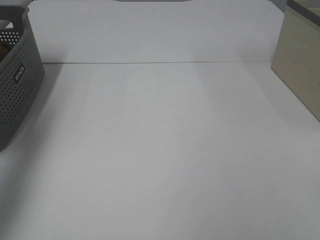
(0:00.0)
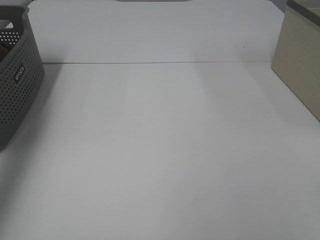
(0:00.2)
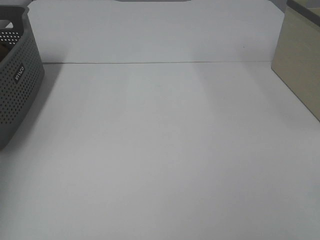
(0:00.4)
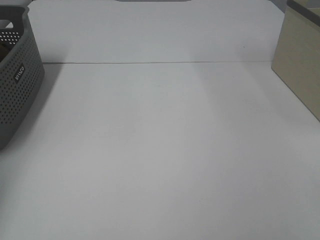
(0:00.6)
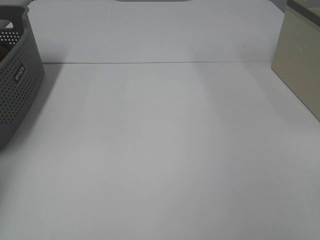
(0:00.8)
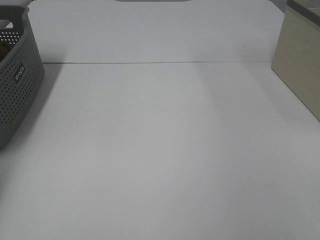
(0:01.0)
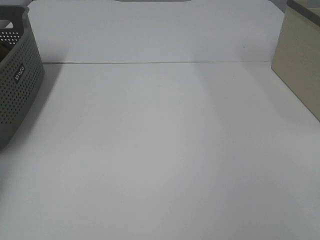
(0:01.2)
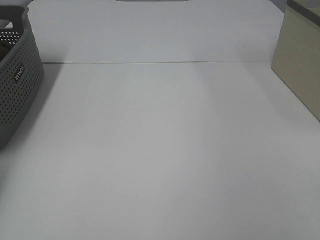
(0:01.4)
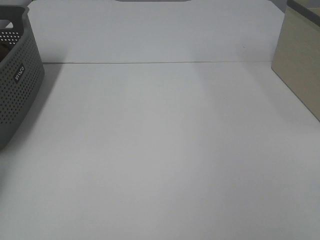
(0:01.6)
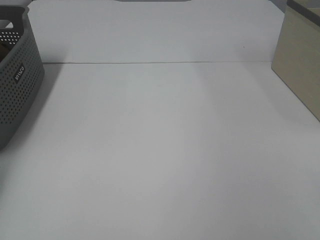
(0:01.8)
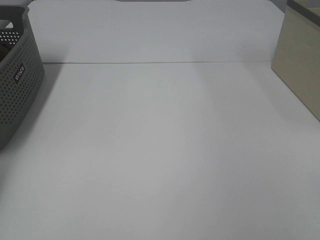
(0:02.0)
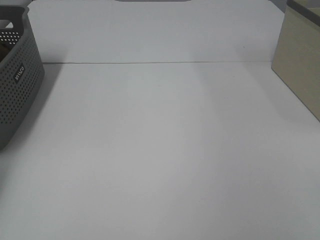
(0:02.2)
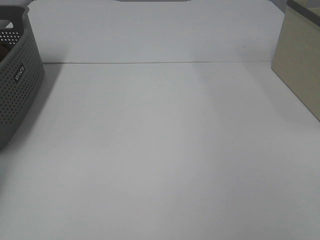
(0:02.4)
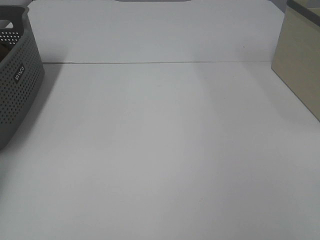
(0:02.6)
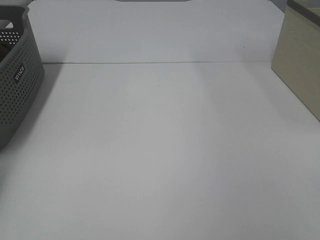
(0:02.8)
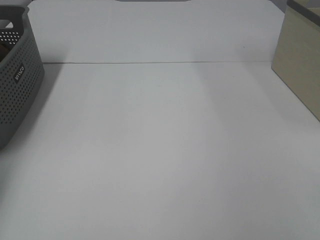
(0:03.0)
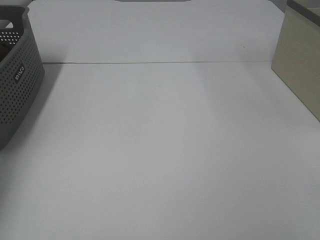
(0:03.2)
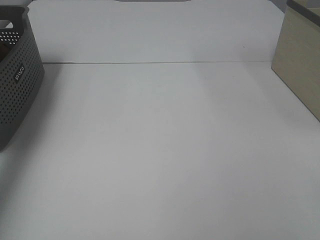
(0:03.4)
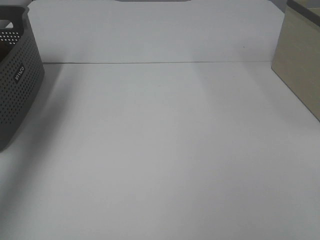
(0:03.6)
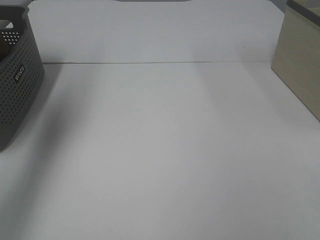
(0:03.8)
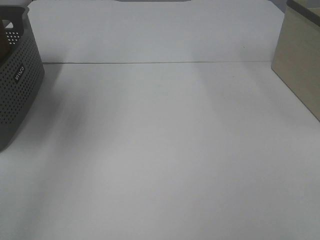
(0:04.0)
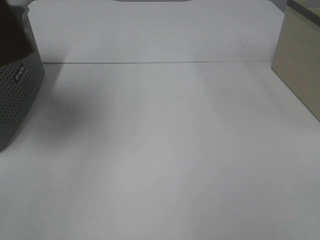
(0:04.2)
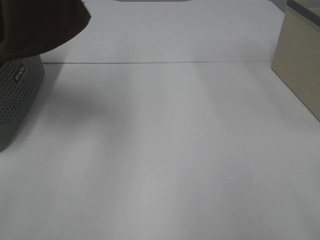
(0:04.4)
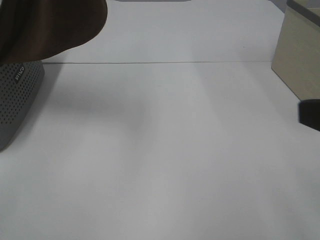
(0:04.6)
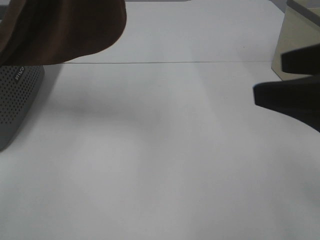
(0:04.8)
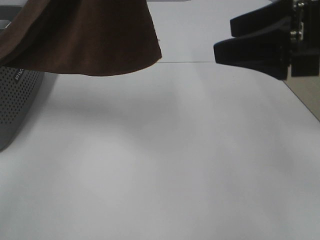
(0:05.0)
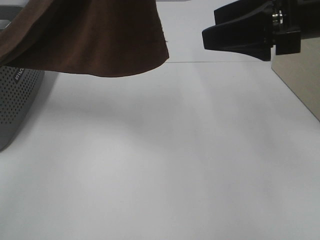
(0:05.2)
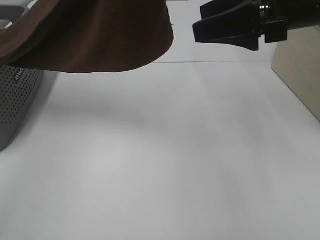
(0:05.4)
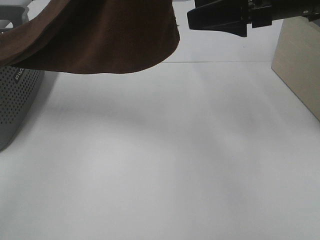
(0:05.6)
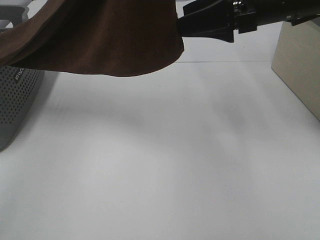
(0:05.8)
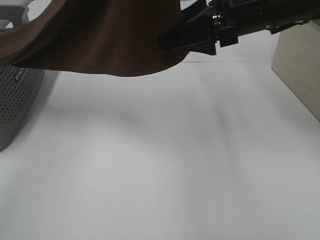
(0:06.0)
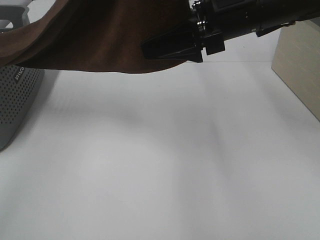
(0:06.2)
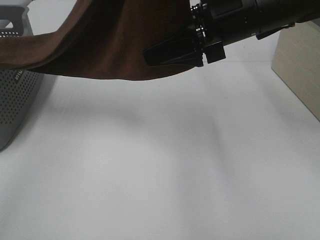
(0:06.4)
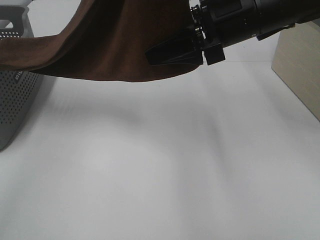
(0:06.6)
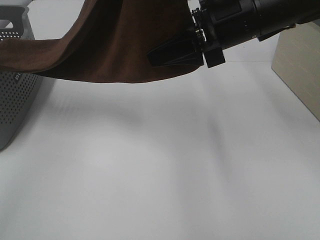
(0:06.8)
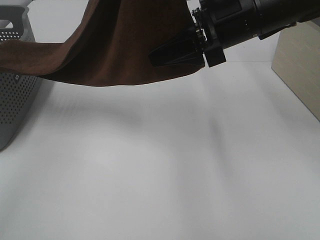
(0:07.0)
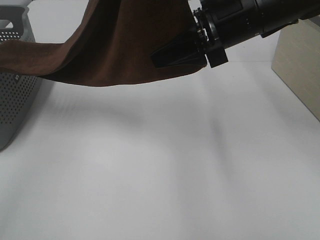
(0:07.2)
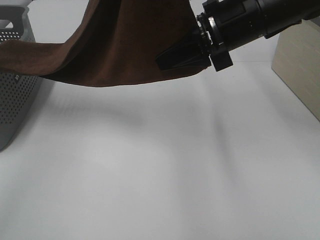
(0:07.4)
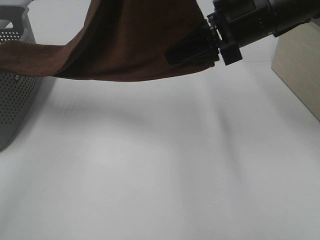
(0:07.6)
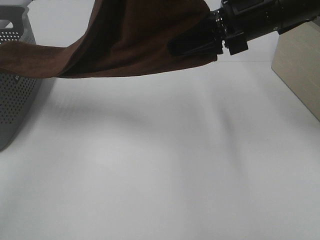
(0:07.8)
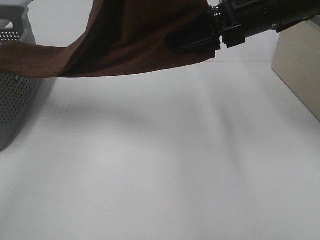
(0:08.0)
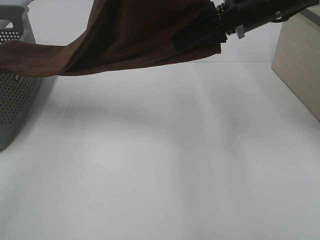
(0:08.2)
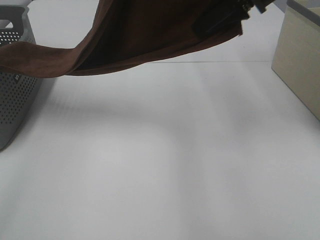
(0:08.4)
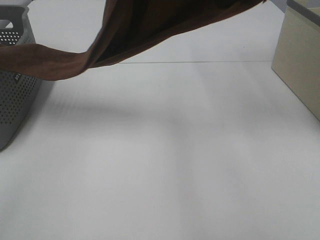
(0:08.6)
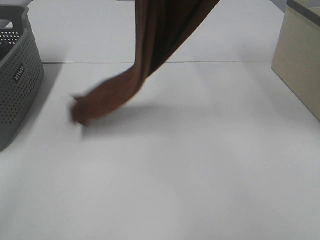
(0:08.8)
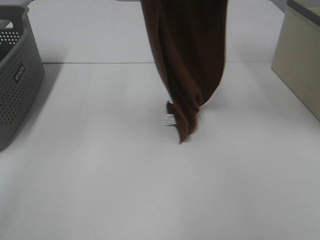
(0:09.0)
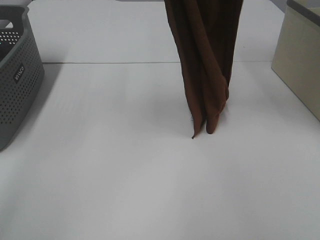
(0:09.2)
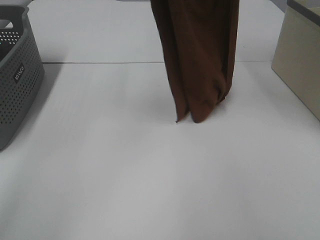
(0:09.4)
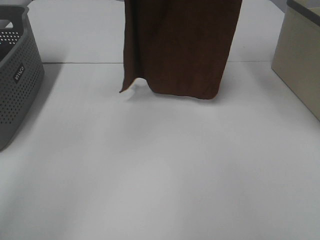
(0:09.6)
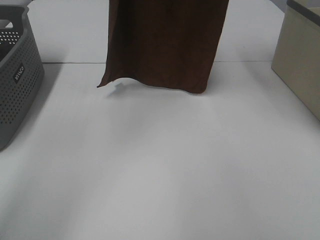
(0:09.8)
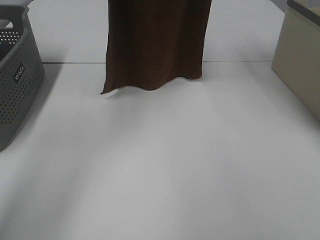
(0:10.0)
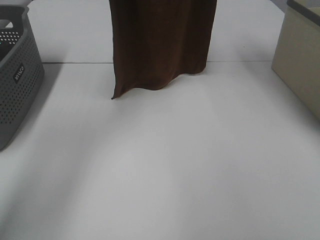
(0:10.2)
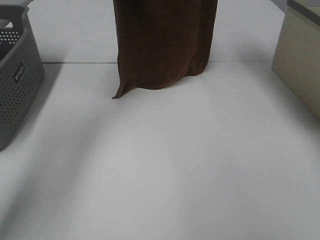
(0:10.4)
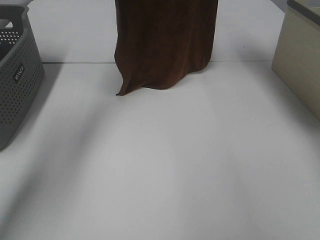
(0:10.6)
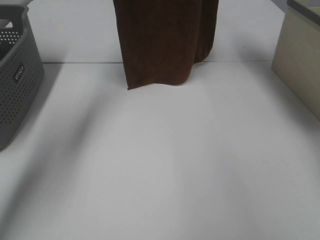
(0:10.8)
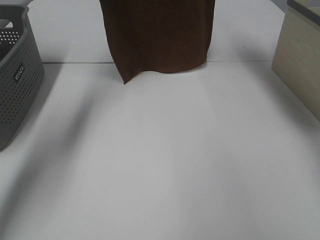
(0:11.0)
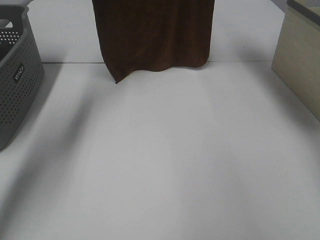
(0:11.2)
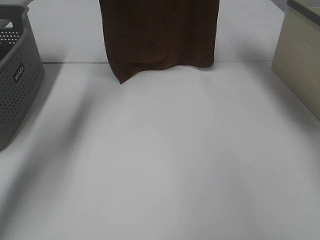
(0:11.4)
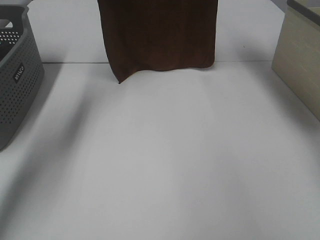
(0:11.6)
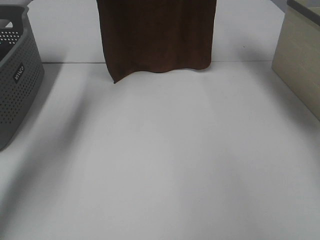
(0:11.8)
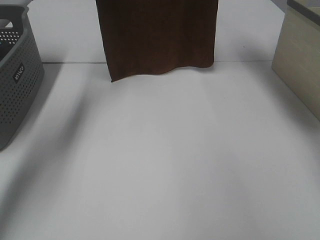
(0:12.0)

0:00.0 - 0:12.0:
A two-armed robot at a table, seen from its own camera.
Task of the whole recording: Remove the towel and place it.
Step, 0:03.4 - 0:07.4: Right hand: grab a corner of the brown towel and straighten it.
0:00.0 - 0:01.6: The left gripper travels downward, forward and to the left by approximately 30 cm.
0:03.0 - 0:04.4: The left gripper is displaced upward, to the right and backward by approximately 40 cm. The right gripper heads forward, covering roughly 5 cm.
0:04.4 - 0:06.0: The left gripper goes roughly 10 cm to the right; the right gripper heads forward and to the left, covering some 30 cm.
0:06.0 - 0:07.6: The right gripper closes its fingers.
0:07.6 - 0:09.0: The right gripper heads upward, covering roughly 20 cm. The left gripper moves forward, roughly 5 cm.
0:09.0 - 0:10.4: The left gripper goes some 20 cm forward and downward. The right gripper is displaced forward by approximately 15 cm.

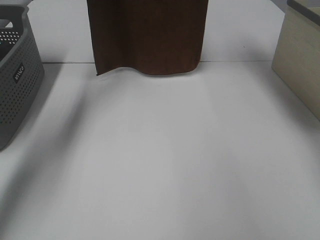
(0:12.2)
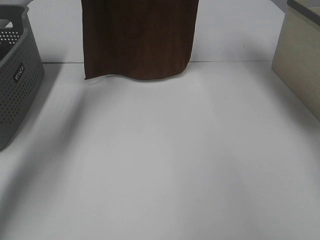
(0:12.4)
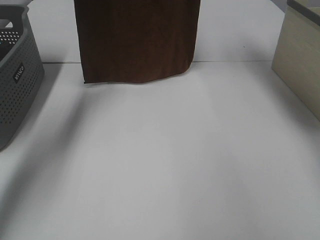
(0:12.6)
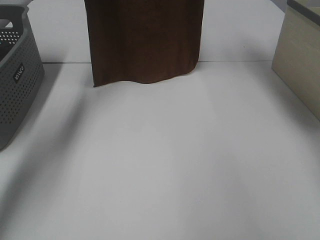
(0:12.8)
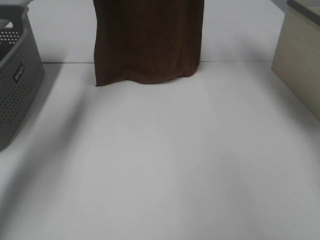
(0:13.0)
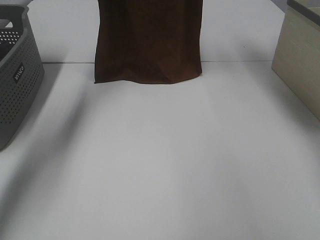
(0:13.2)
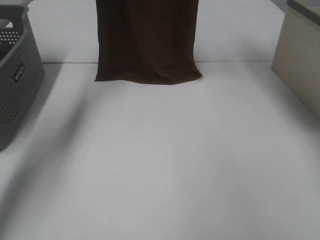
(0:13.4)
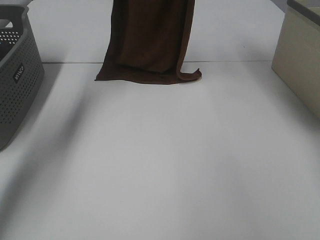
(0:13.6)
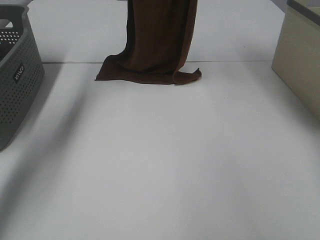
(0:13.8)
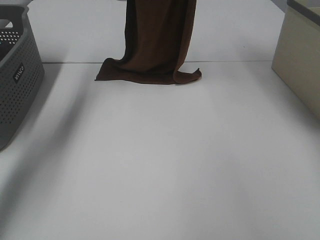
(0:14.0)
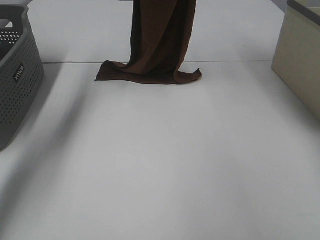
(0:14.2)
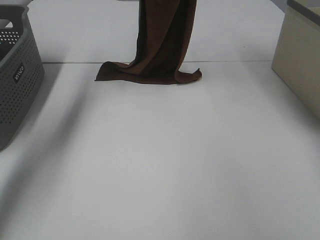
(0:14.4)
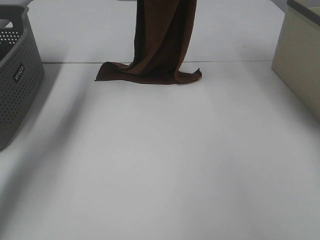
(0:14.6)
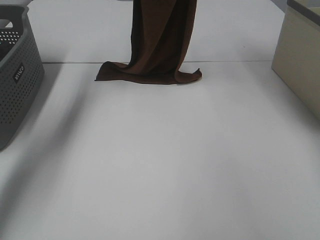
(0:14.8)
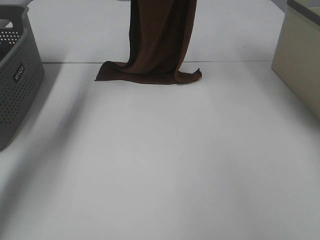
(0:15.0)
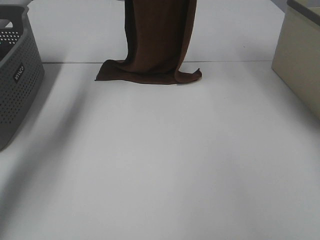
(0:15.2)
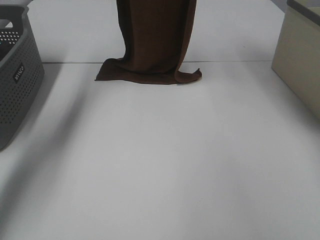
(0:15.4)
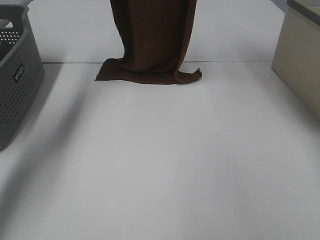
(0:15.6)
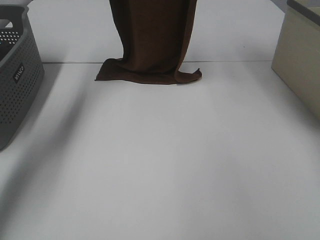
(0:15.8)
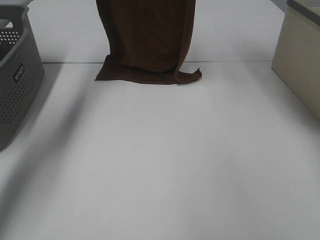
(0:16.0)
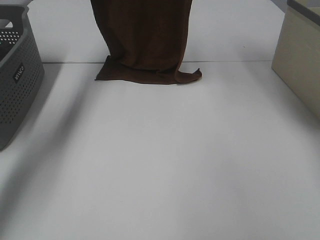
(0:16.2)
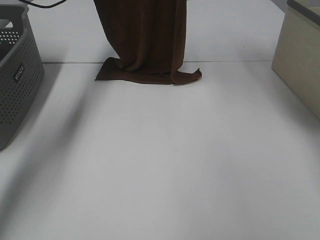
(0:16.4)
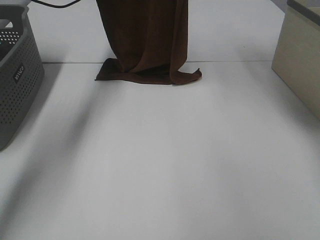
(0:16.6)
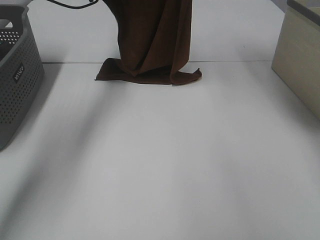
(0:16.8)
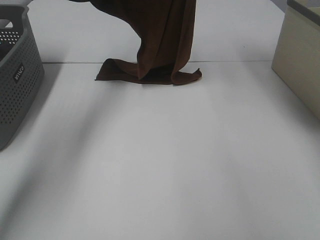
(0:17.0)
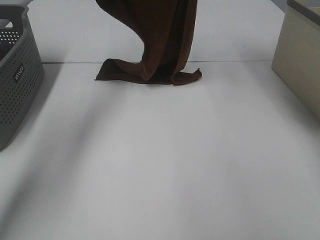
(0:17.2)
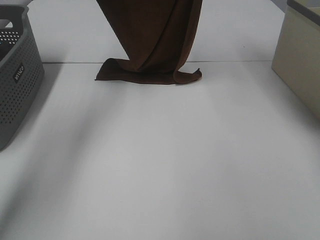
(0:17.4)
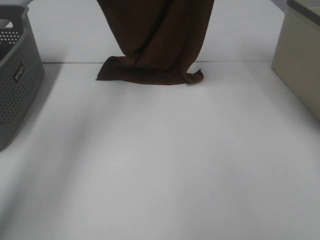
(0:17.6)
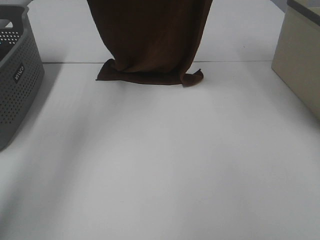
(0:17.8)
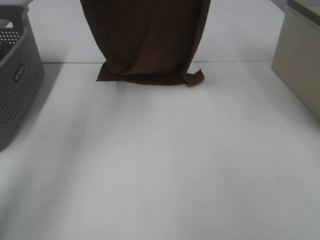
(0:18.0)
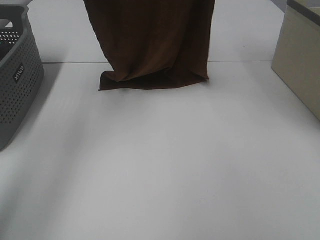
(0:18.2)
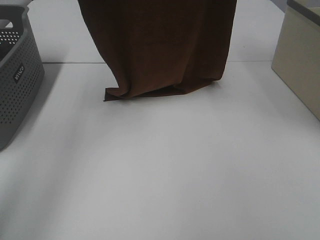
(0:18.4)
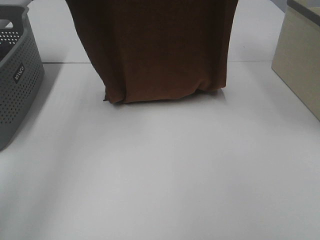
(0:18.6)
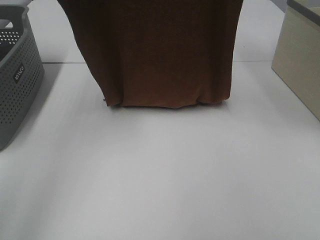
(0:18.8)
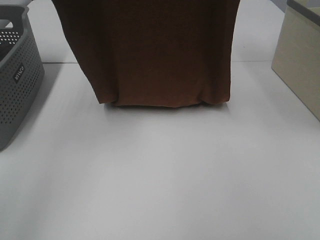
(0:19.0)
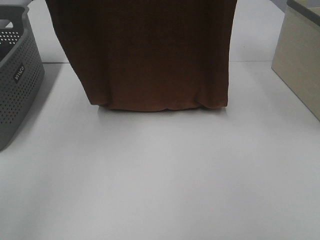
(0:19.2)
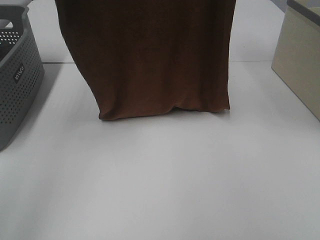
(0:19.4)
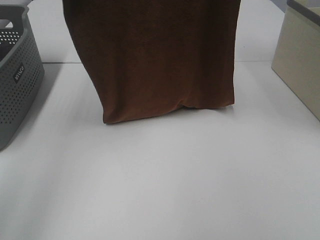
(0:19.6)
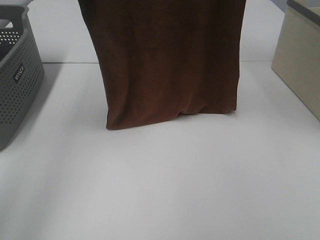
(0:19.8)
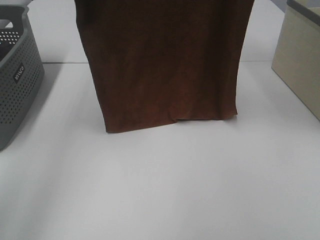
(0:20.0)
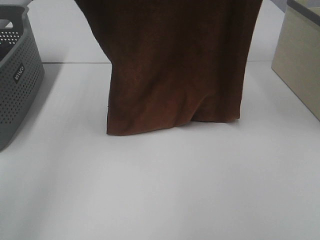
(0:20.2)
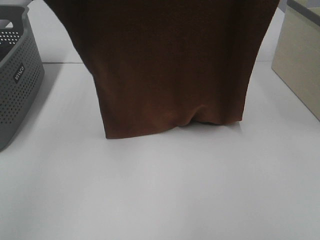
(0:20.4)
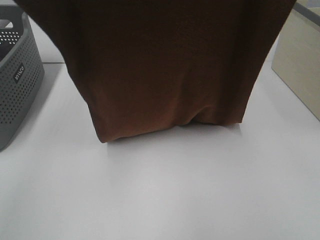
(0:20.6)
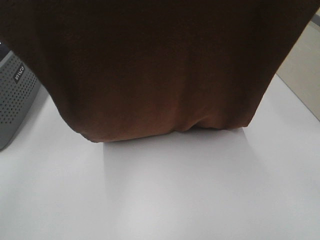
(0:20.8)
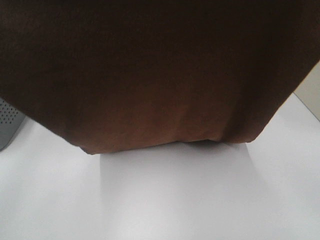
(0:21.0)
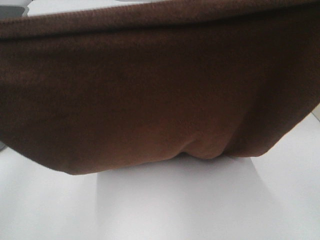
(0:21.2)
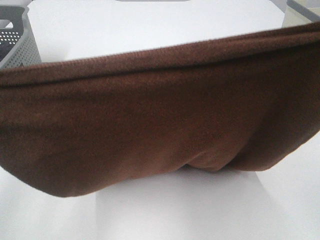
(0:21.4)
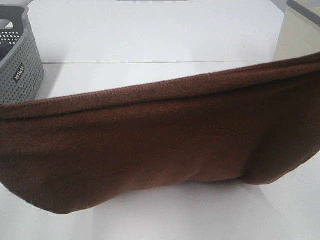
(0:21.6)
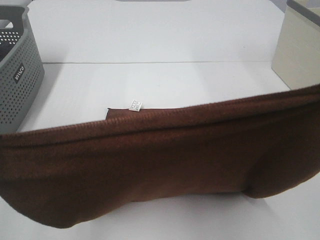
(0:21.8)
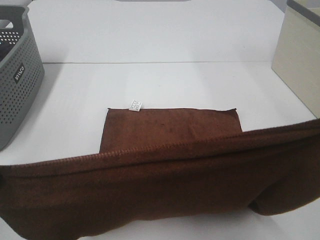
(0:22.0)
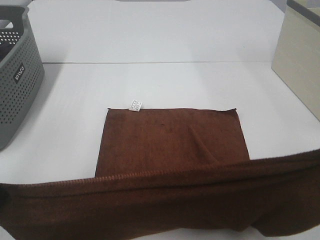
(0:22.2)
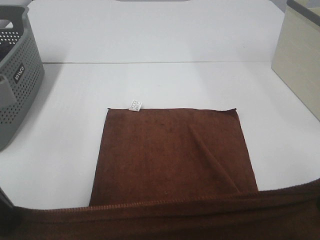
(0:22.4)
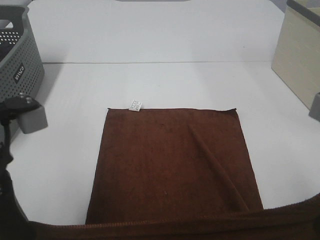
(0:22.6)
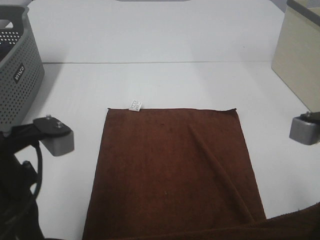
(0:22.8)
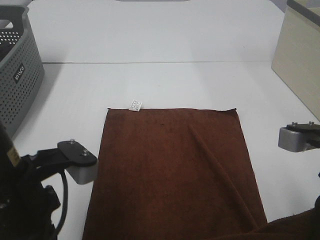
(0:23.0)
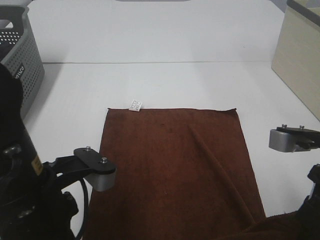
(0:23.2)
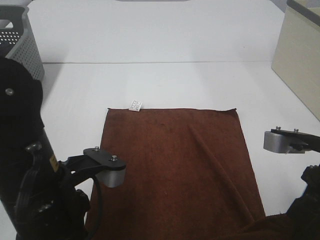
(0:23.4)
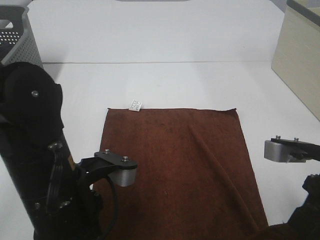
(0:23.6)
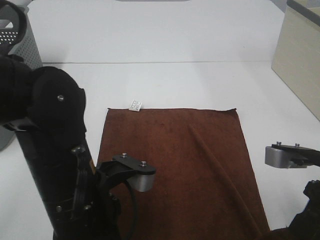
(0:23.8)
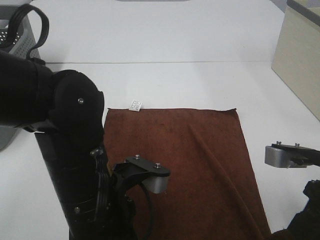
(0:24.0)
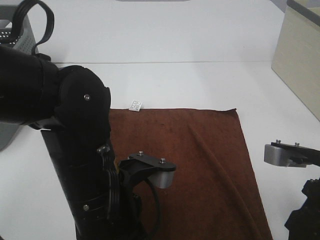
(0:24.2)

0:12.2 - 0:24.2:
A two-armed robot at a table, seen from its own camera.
Task of the whole recording: Remove the towel and place it.
Step, 0:12.2 - 0:18.8: Left hand: spread the brown towel flat on the table.
Step, 0:12.2 - 0:18.8: Right hand: spread the brown towel flat on the table.
0:12.2 - 0:13.8: The left gripper heads downward, covering about 10 cm.
0:15.2 - 0:16.6: The left gripper goes some 5 cm downward.
0:16.6 - 0:18.2: The right gripper moves backward and upward, approximately 10 cm. The left gripper is displaced upward and backward by some 25 cm.
0:18.2 - 0:19.8: The grippers both shift backward by some 5 cm.
0:19.8 - 0:21.2: Both grippers travel together backward and downward, some 20 cm.
0:21.2 - 0:22.6: The grippers both shift downward by about 15 cm.
0:22.6 - 0:24.2: The right gripper is displaced downward by some 10 cm, and opens up; the left gripper travels to the right and downward by some 15 cm.
